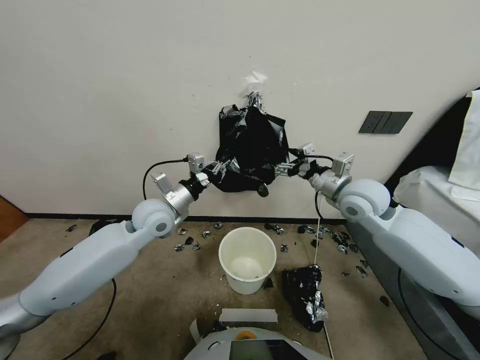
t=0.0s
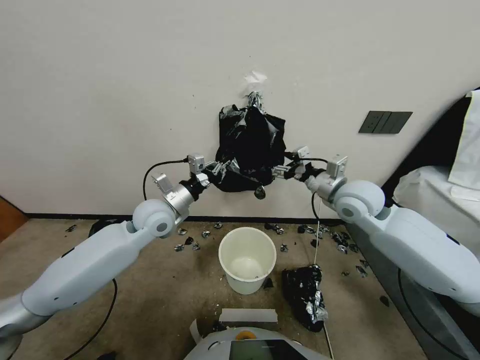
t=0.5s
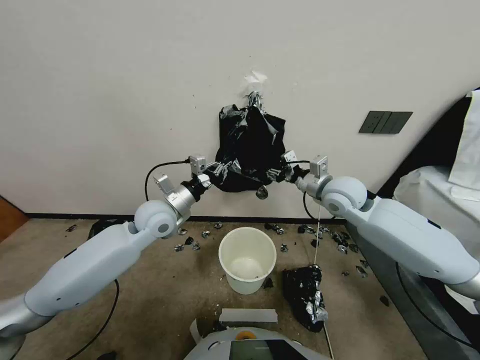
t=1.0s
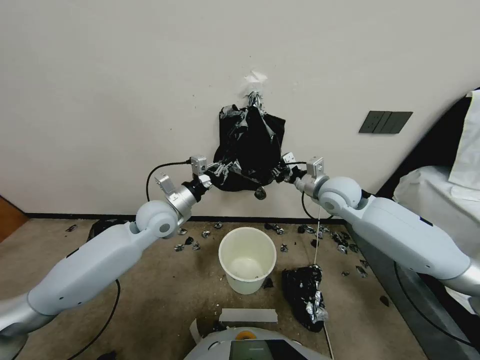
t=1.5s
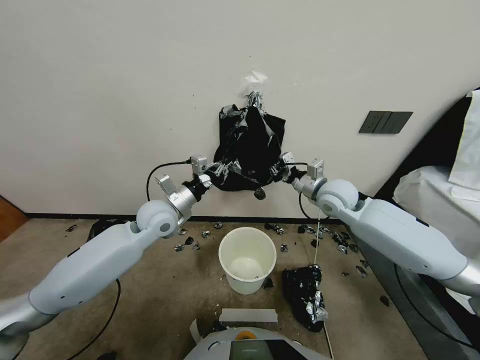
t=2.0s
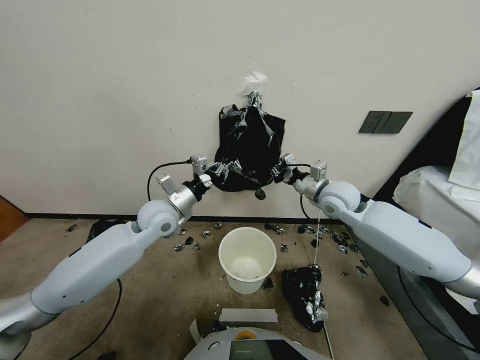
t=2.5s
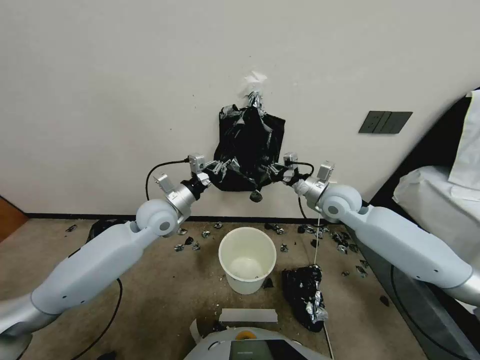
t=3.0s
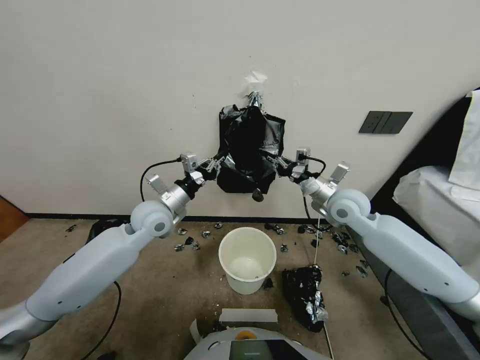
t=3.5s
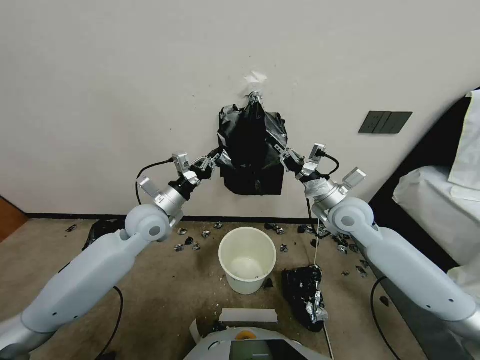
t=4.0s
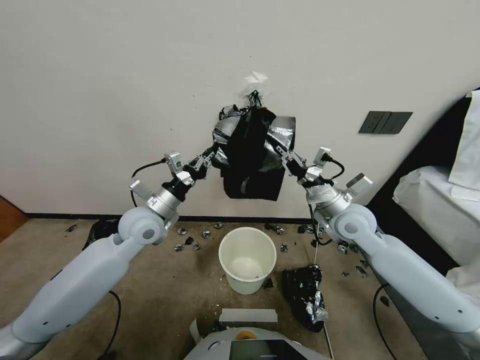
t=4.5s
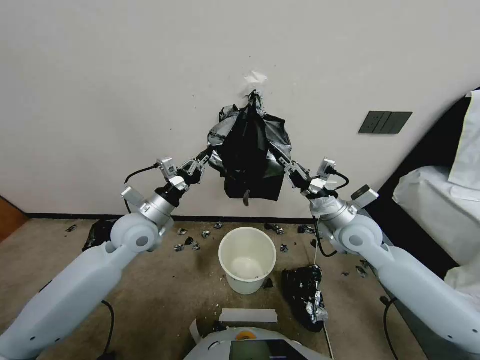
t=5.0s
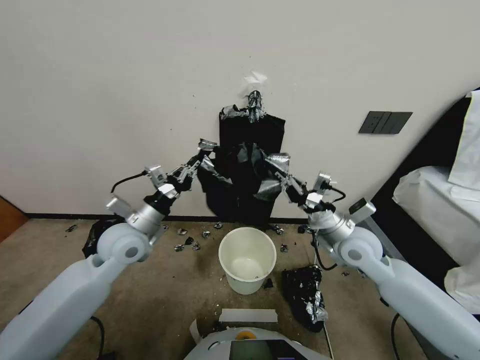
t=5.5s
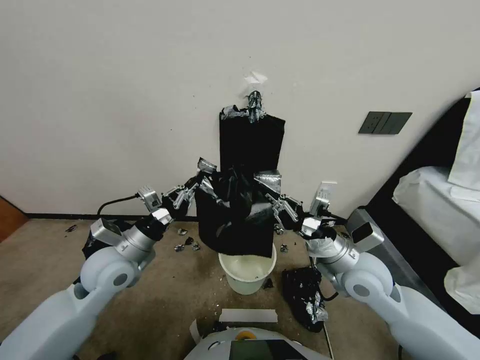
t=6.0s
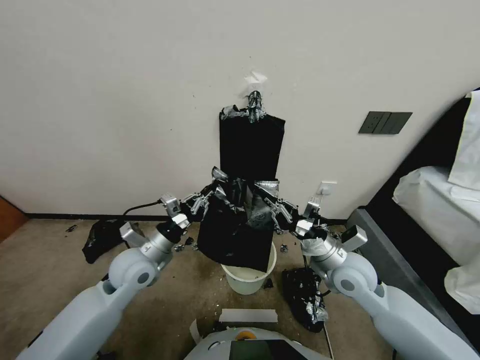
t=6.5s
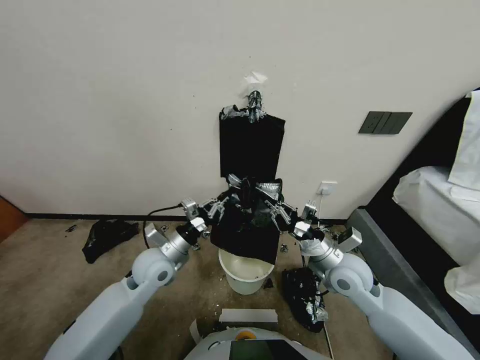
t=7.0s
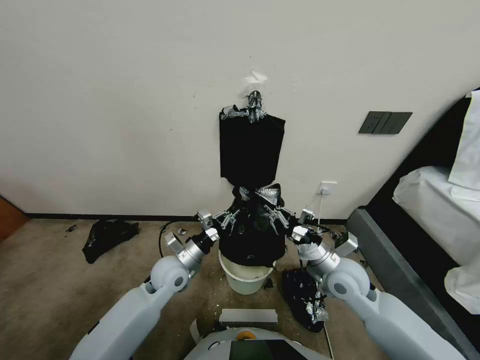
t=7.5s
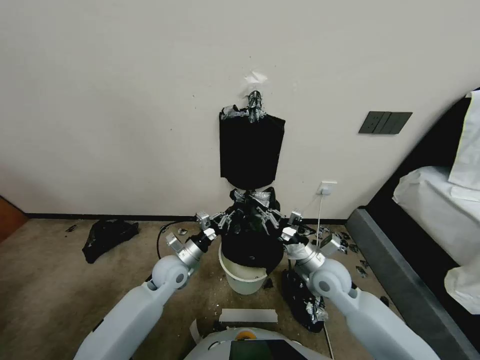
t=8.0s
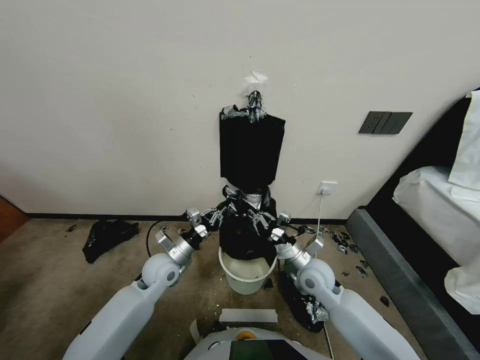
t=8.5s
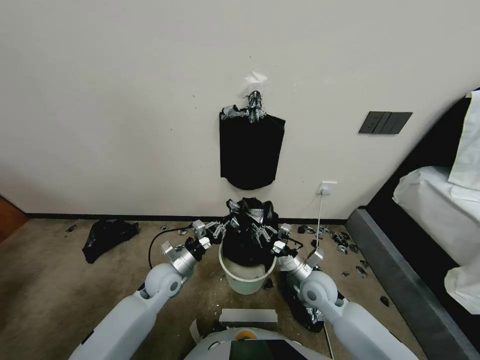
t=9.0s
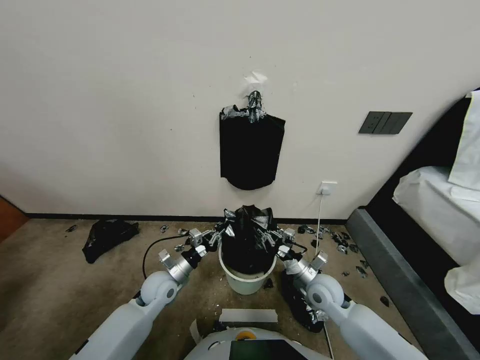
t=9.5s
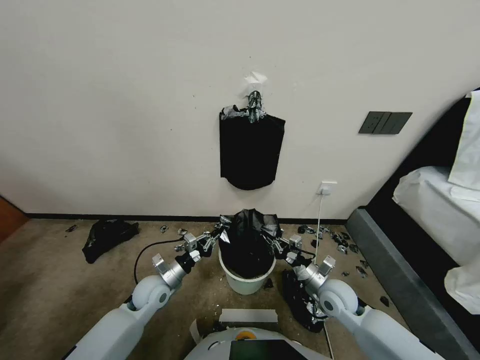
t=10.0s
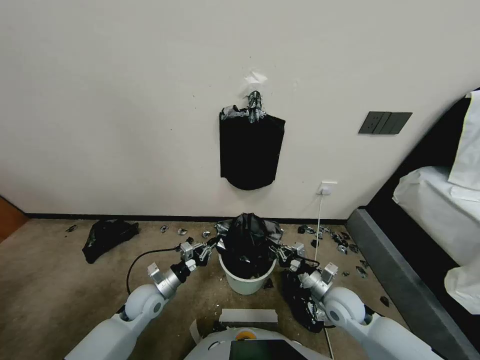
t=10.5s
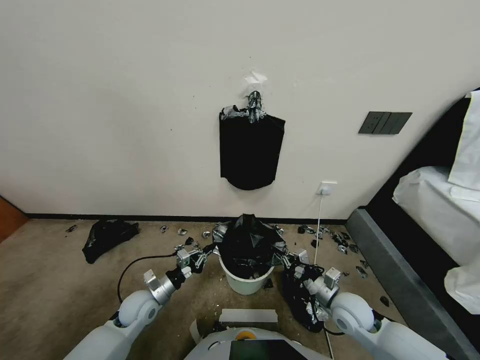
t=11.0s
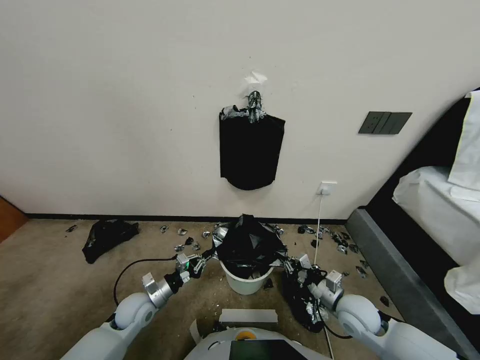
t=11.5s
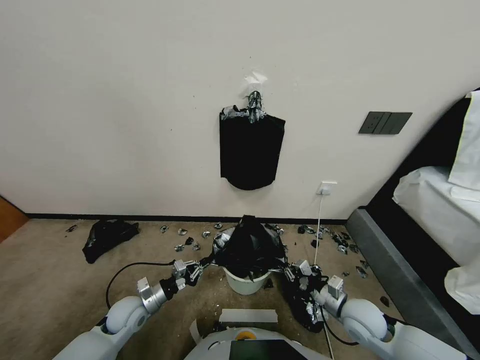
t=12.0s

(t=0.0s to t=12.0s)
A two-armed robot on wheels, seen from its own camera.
Task of the whole recording: Place a trash bag onto the trash bin.
t=0.0s - t=2.0s: The right gripper moves approximately 5 cm, and closes up.
t=2.0s - t=4.0s: The right gripper travels backward by about 5 cm.
t=4.0s - t=6.0s: Both grippers travel together backward, roughly 10 cm.
t=6.0s - t=8.0s: The left gripper goes some 15 cm downward and to the right; the right gripper travels downward by some 10 cm.
t=8.0s - t=10.0s: The left gripper travels downward and to the left by roughly 10 cm. Meanwhile the right gripper heads downward and to the right, covering approximately 10 cm.
t=10.0s - t=12.0s: The left gripper travels to the left by roughly 5 cm. Meanwhile the right gripper travels backward by some 5 cm.

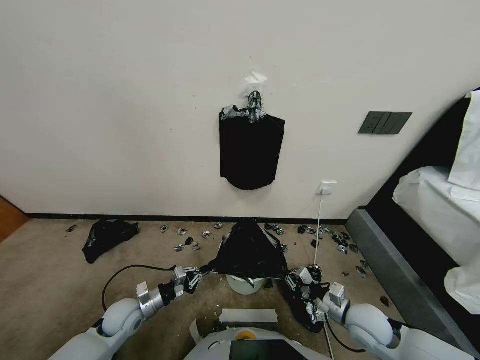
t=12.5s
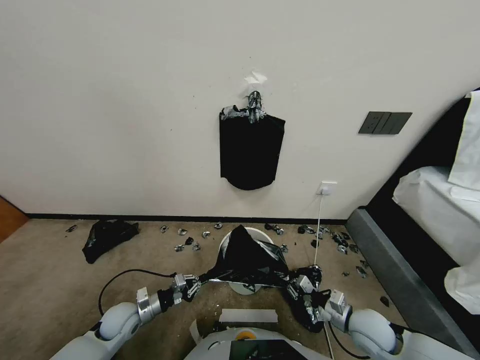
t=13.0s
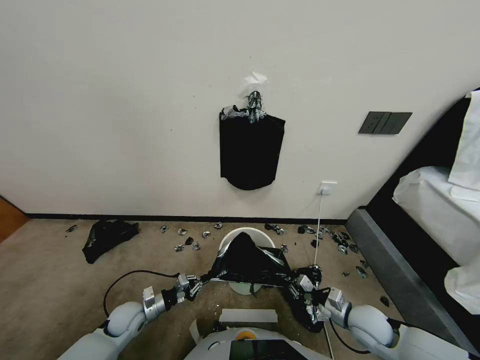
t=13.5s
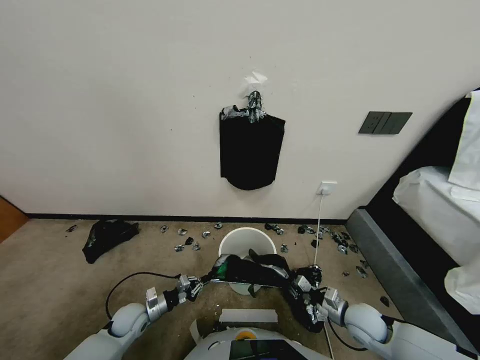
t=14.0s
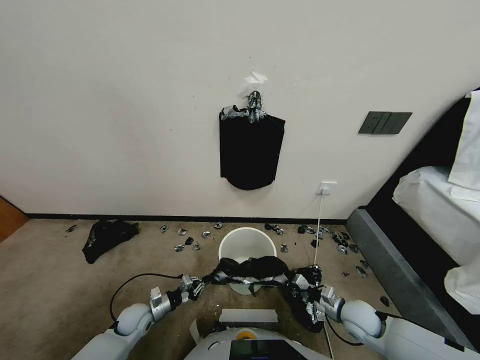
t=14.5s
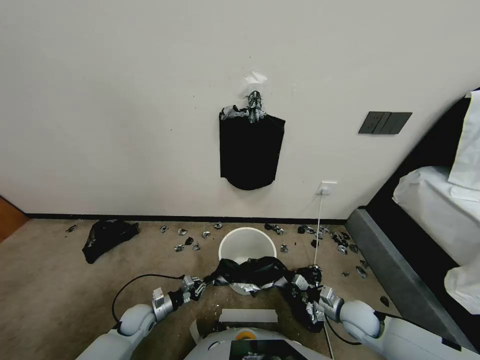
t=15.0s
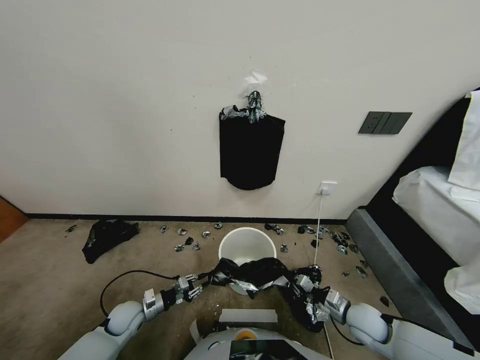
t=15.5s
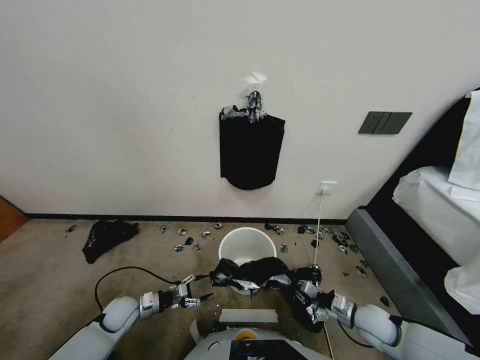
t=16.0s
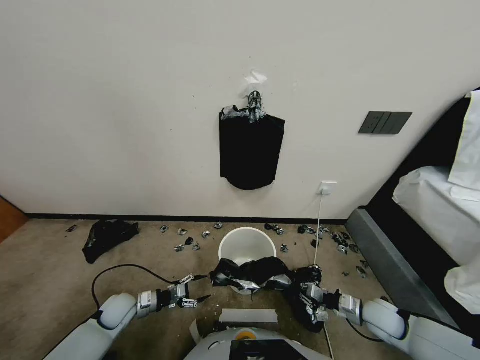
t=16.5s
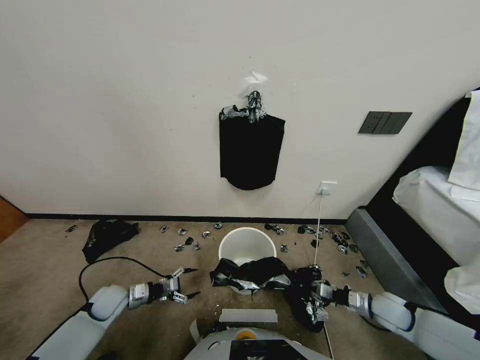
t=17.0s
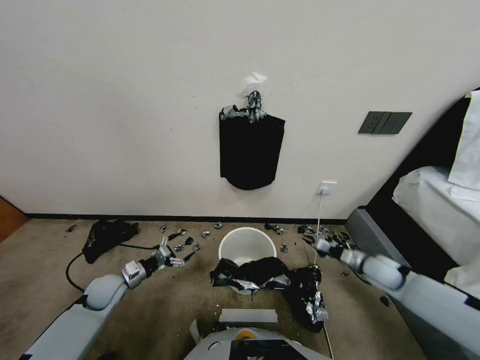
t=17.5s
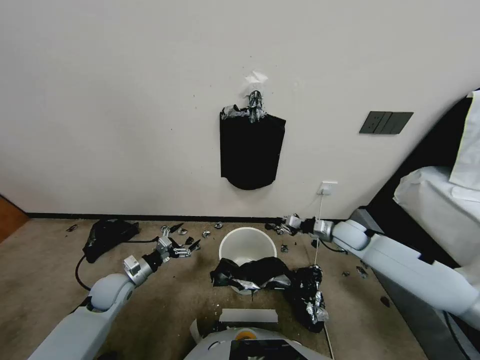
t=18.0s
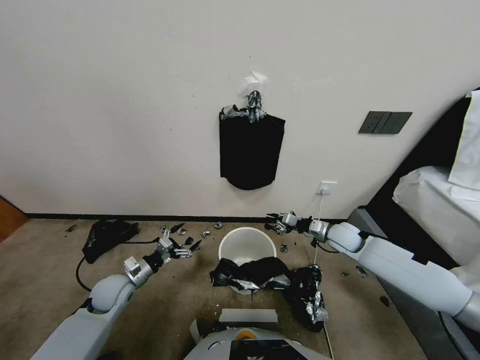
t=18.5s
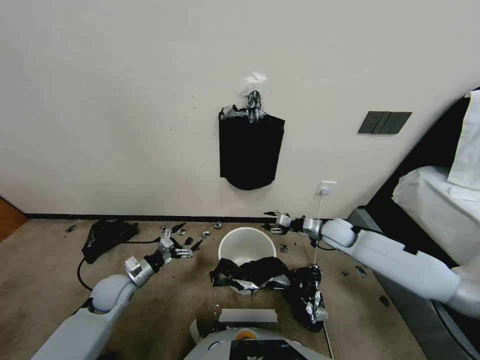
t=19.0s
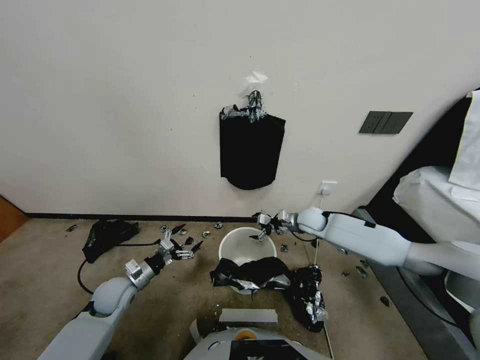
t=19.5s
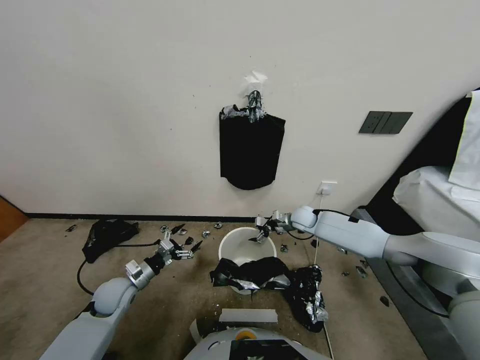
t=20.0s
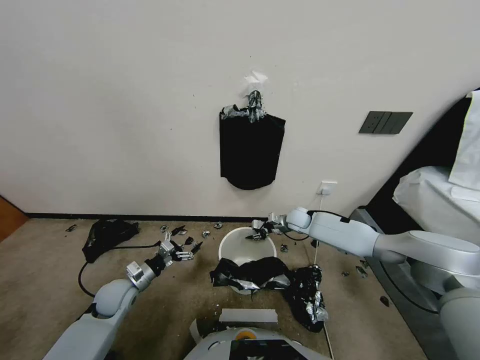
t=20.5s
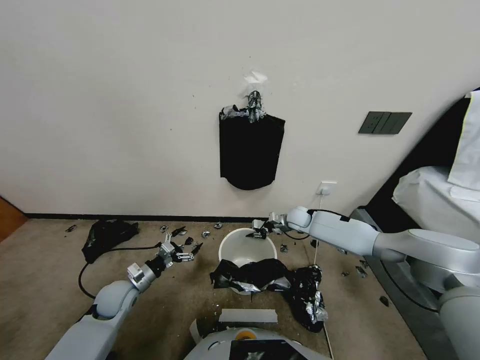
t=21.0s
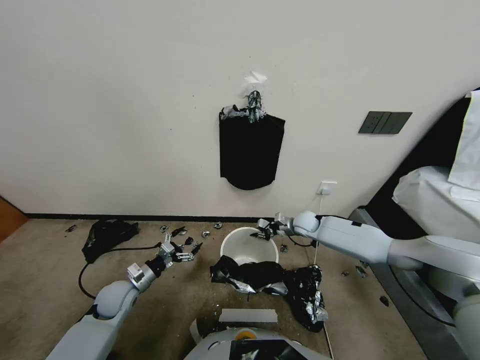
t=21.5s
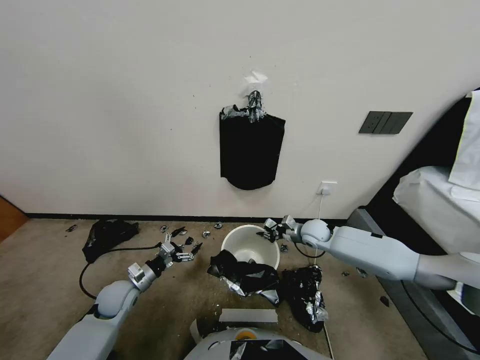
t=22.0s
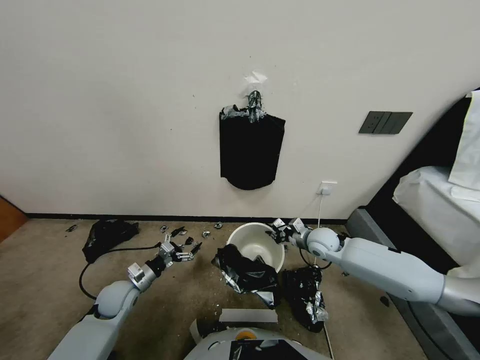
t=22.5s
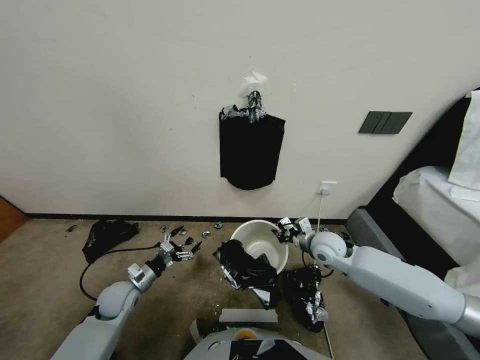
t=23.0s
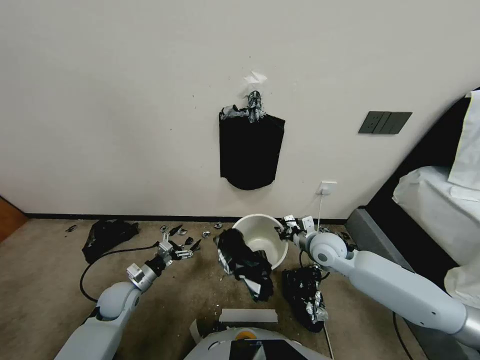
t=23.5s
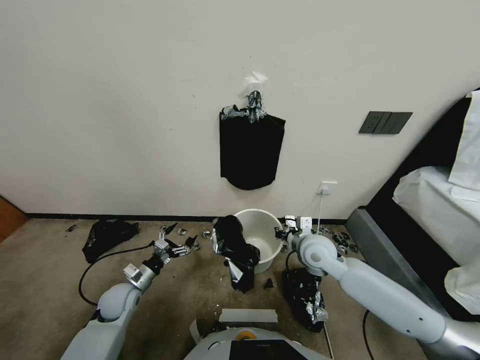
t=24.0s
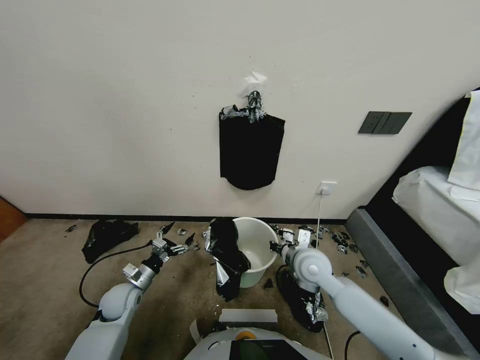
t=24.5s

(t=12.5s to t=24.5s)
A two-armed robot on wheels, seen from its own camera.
Task of the whole recording: Place a trash bag onto the trash bin.
t=12.5s - t=14.5s: The two grippers go about 5 cm downward.
t=14.5s - t=16.5s: The left gripper ends up approximately 5 cm from where it was, and opens up. Meanwhile the right gripper is displaced to the right by some 5 cm.
t=16.5s - t=18.5s: The right gripper shifts approximately 25 cm forward and upward. The left gripper moves upward, about 10 cm.
t=18.5s - t=20.5s: The right gripper heads forward and to the left, covering approximately 15 cm, and opens, then closes once more.
t=20.5s - t=22.5s: The right gripper moves backward, approximately 15 cm.
t=22.5s - t=24.5s: The right gripper is displaced backward and to the left by about 15 cm.

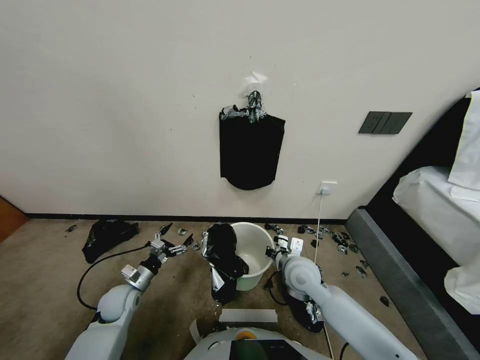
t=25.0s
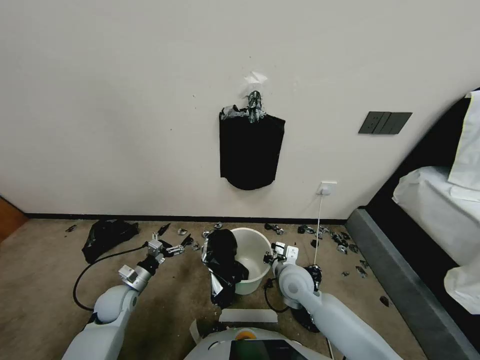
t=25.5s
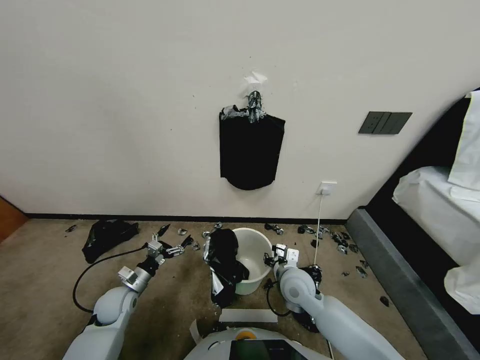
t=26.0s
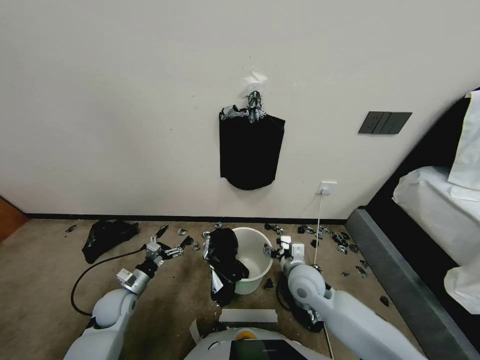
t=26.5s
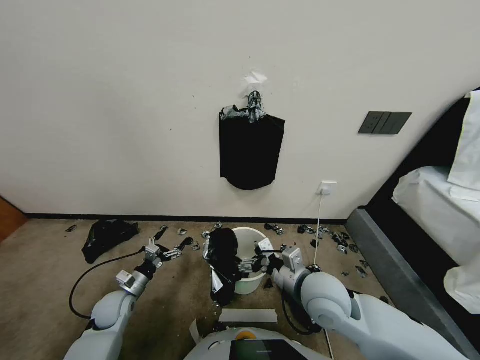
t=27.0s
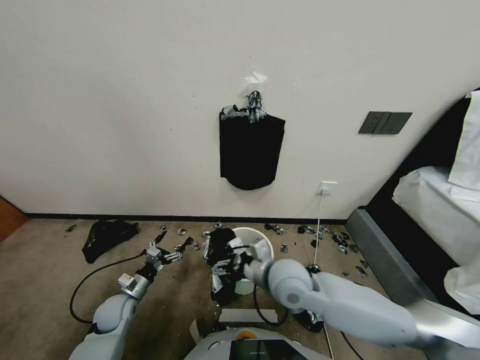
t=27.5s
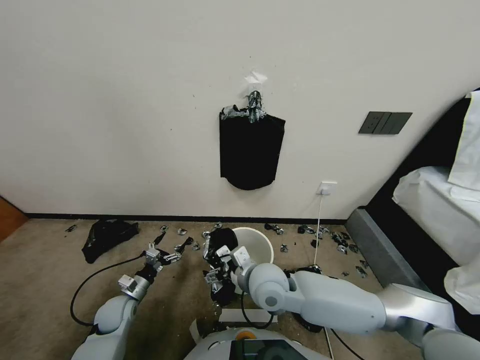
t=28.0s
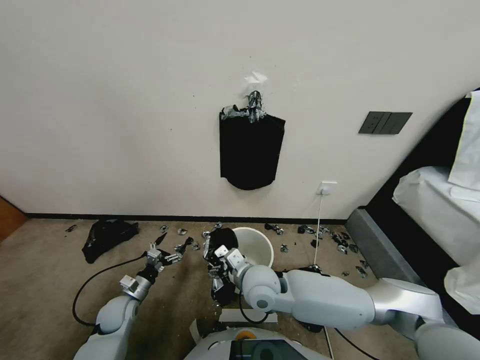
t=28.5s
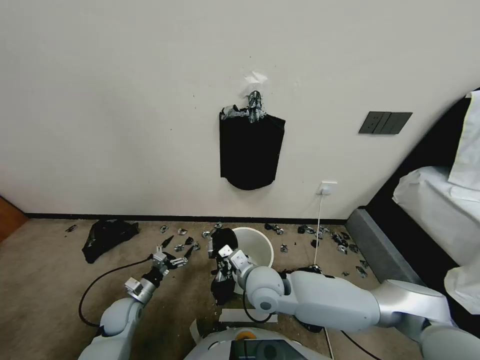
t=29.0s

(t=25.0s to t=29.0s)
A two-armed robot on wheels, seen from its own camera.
Task of the whole recording: Place a trash bag onto the trash bin.
t=25.0s - t=27.0s: The right gripper moves upward and backward, approximately 10 cm, and opens.
t=27.0s - t=29.0s: The right gripper heads to the left and downward, covering some 10 cm, and closes.
